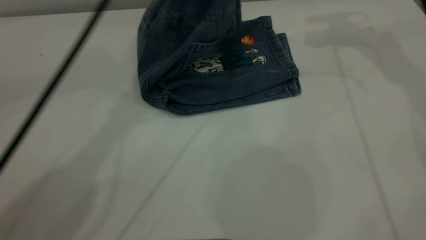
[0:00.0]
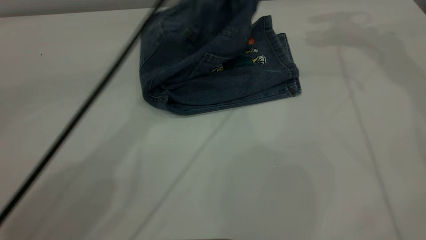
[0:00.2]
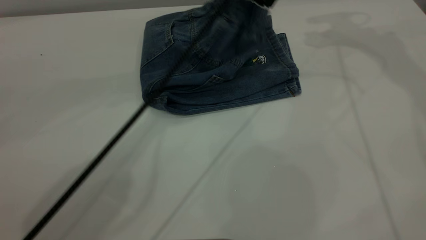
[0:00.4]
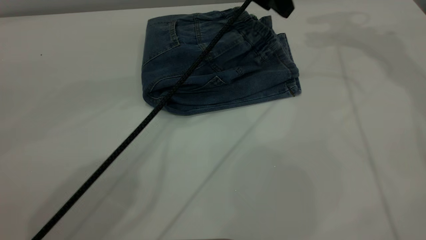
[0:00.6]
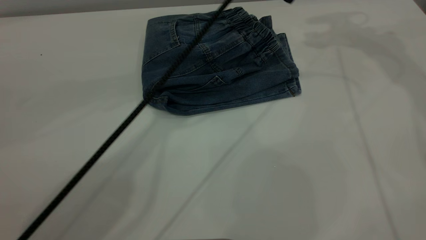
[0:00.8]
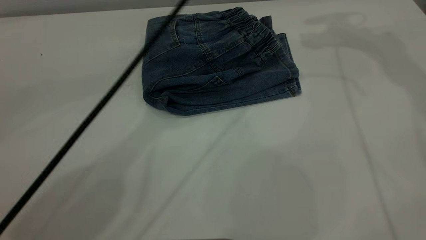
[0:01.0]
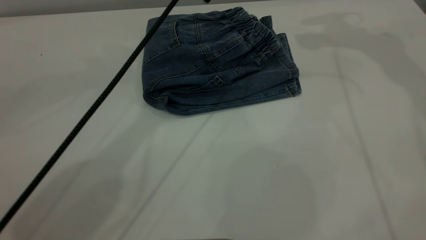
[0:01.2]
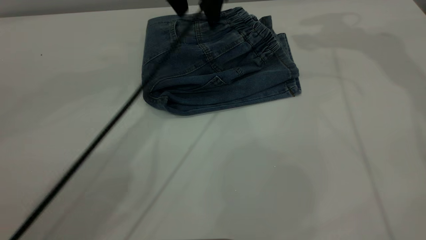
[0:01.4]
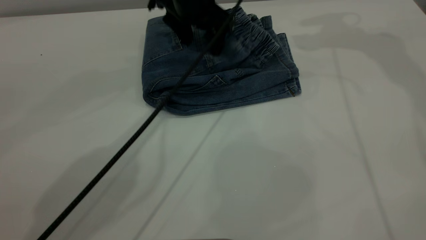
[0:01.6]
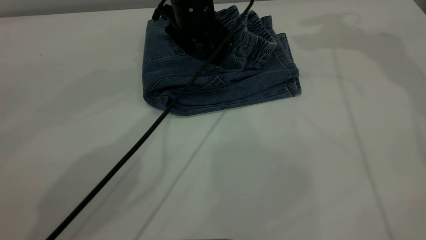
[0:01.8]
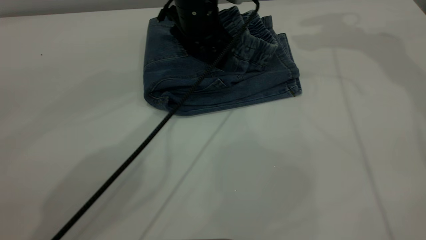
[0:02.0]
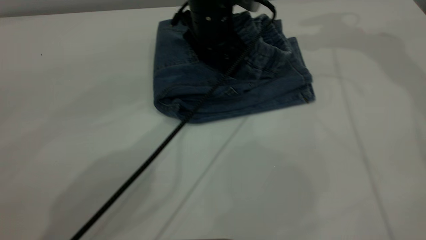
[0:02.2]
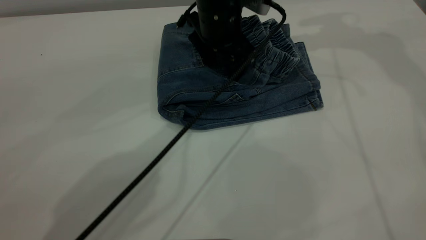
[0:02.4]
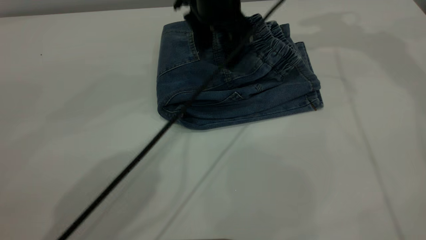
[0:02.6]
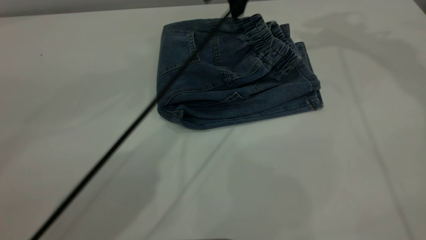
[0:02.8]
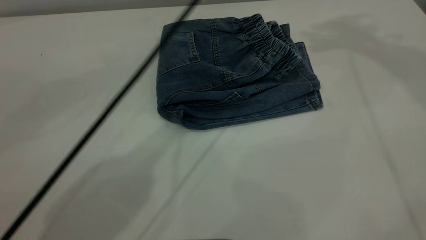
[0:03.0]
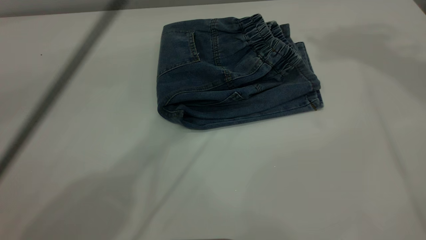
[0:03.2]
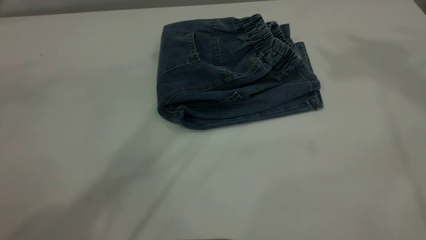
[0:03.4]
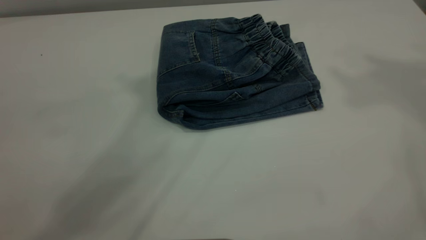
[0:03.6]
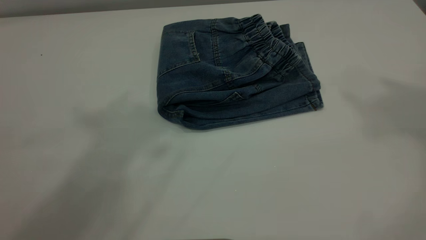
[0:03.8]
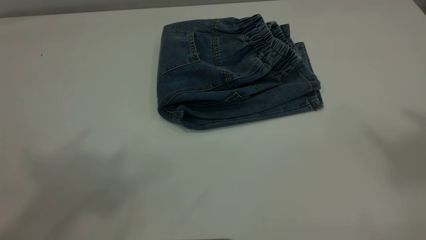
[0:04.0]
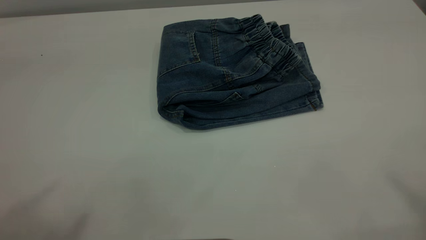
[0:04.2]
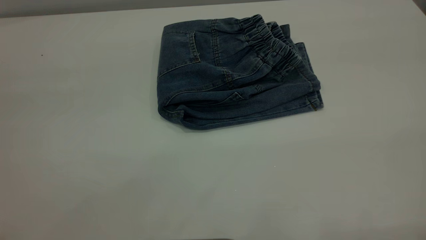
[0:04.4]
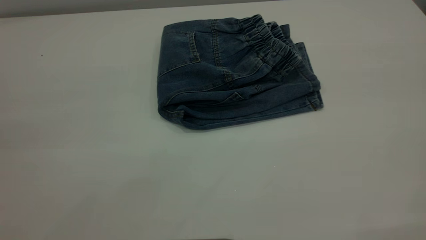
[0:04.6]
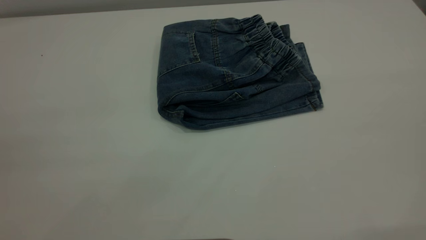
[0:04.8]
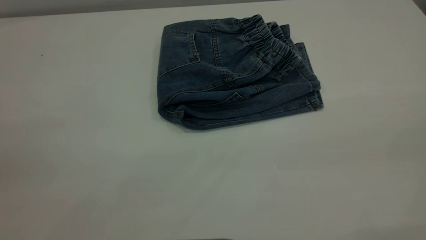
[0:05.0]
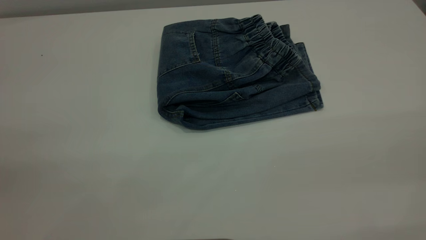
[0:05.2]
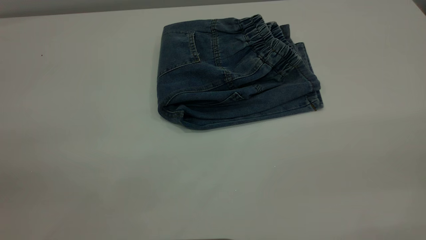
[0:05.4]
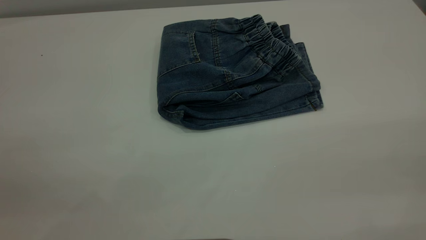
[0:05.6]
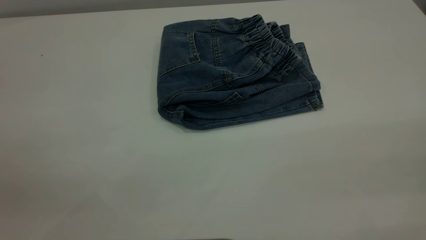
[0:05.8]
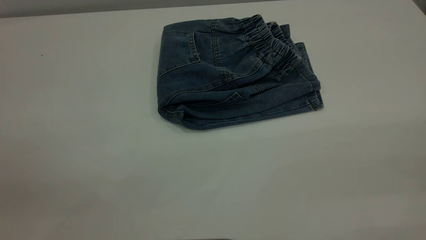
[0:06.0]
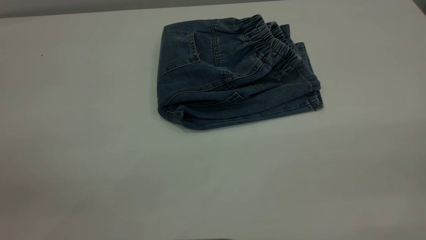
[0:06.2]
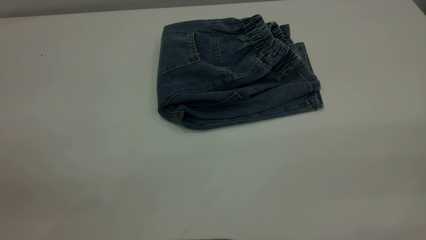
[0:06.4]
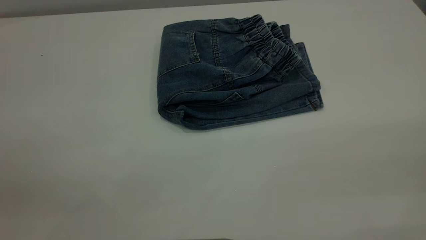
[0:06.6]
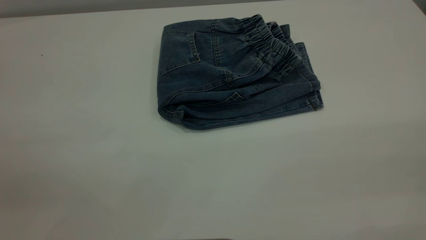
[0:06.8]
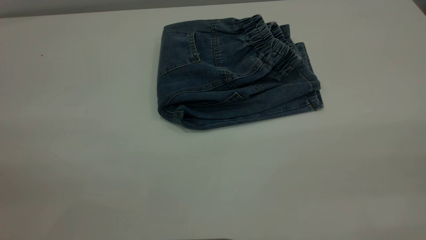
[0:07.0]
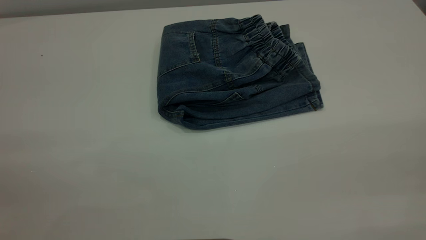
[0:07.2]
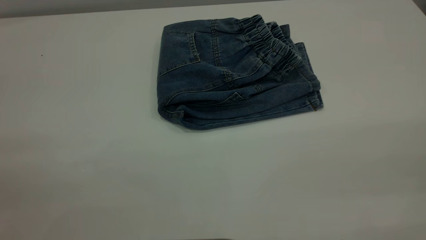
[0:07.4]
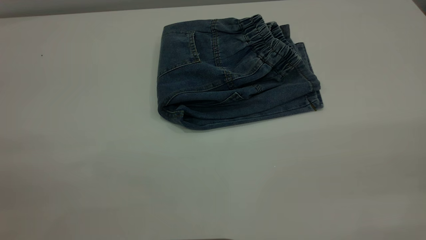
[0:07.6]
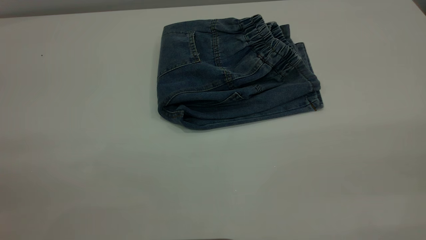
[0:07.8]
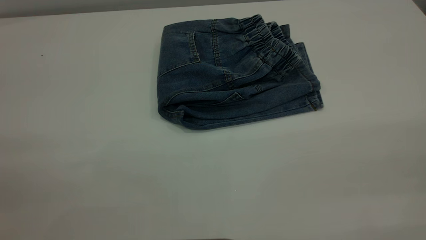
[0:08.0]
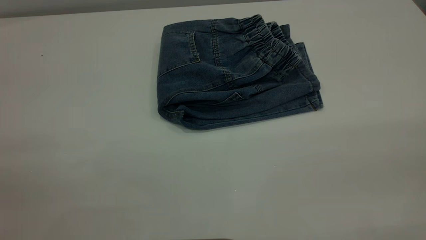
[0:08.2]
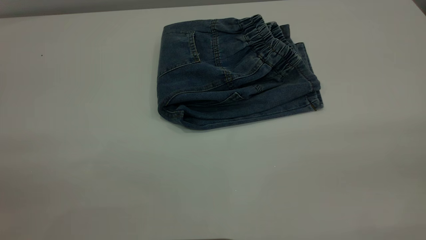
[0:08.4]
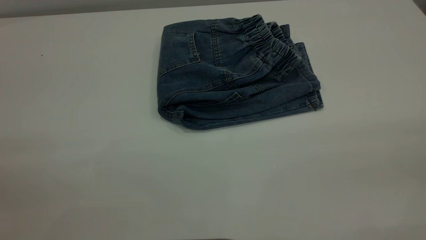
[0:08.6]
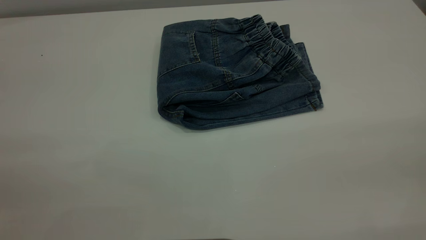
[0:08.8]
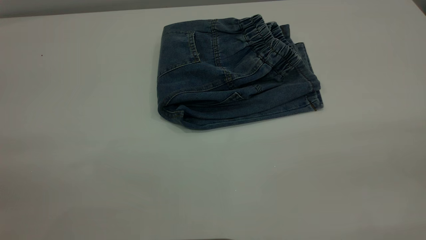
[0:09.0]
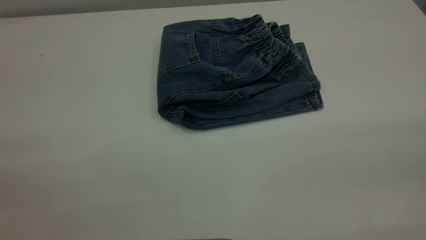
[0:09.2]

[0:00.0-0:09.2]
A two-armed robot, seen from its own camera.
0:00.0 to 0:01.6: The left gripper swings up and down, roughly 15 cm each way, with 2 reversals, and opens its fingers.
0:01.6 to 0:03.0: Both grippers move upward, roughly 15 cm.
0:03.0 to 0:04.6: The left gripper shifts about 50 cm backward and to the left. Meanwhile the right gripper shifts roughly 40 cm backward.
